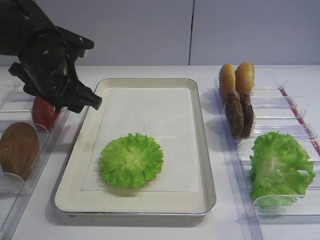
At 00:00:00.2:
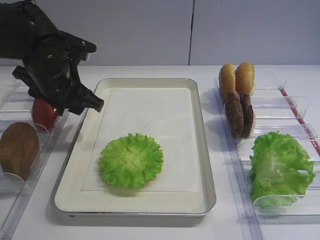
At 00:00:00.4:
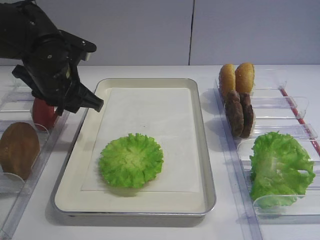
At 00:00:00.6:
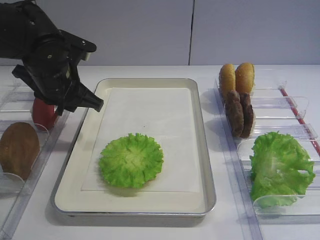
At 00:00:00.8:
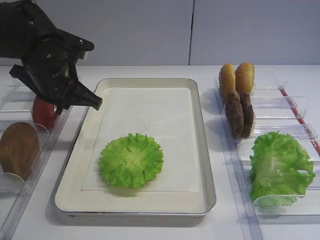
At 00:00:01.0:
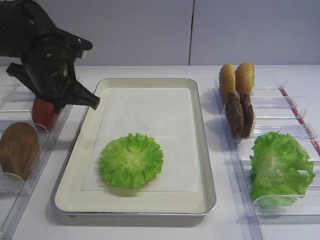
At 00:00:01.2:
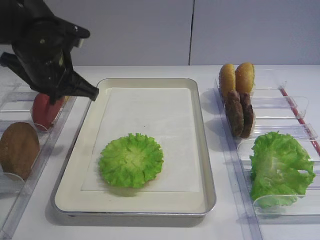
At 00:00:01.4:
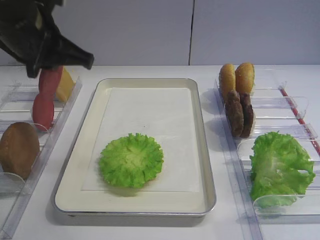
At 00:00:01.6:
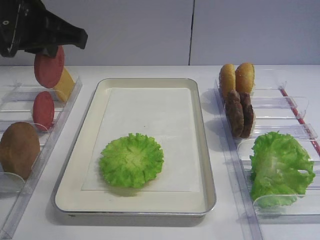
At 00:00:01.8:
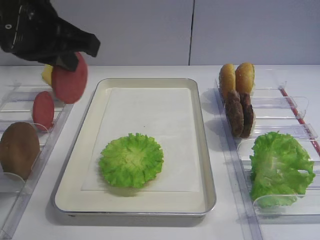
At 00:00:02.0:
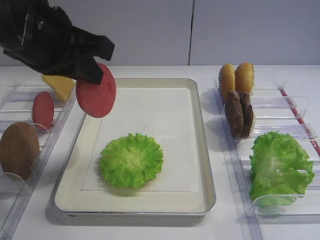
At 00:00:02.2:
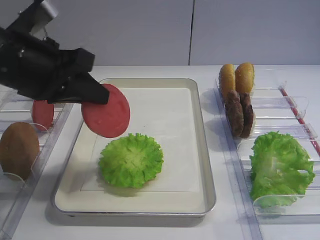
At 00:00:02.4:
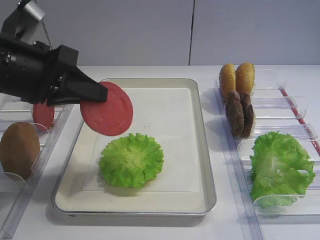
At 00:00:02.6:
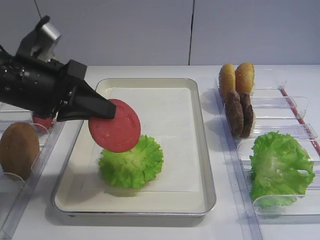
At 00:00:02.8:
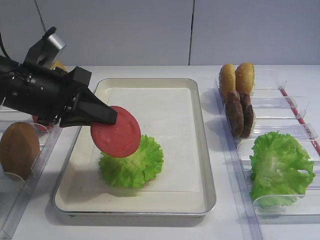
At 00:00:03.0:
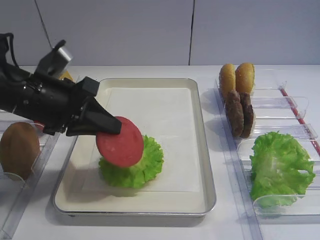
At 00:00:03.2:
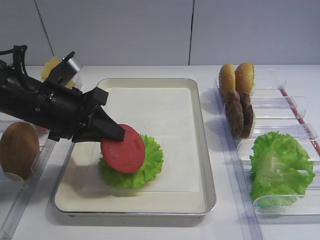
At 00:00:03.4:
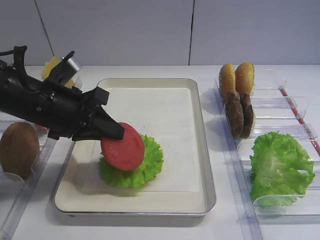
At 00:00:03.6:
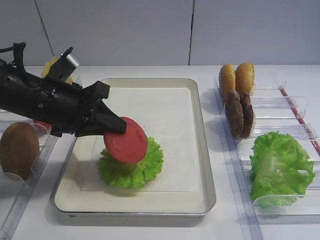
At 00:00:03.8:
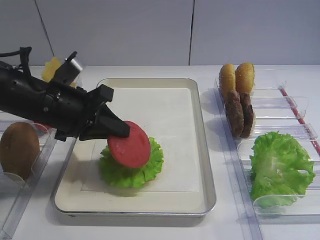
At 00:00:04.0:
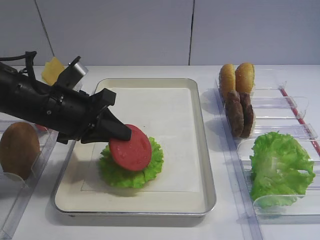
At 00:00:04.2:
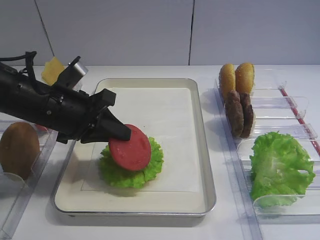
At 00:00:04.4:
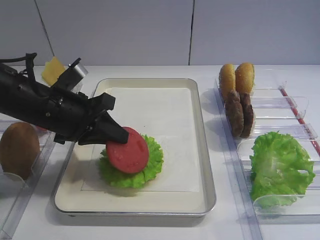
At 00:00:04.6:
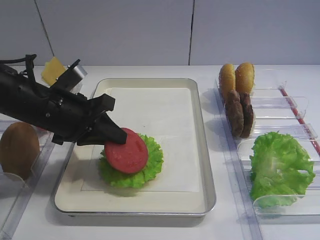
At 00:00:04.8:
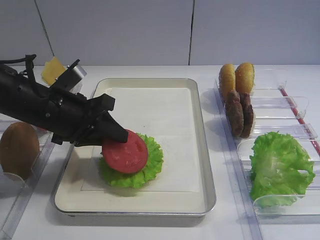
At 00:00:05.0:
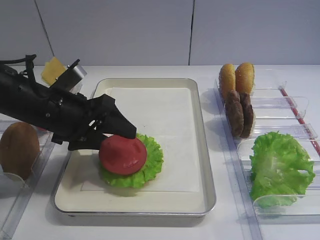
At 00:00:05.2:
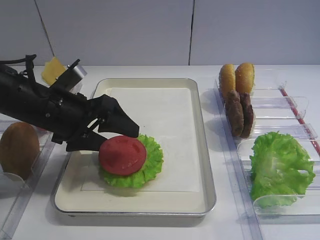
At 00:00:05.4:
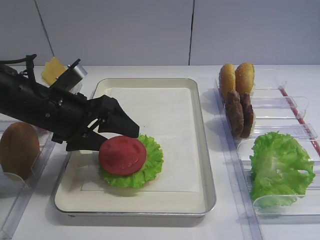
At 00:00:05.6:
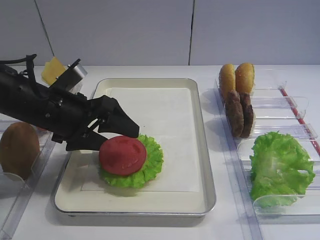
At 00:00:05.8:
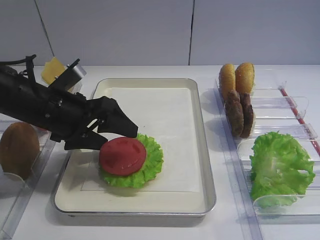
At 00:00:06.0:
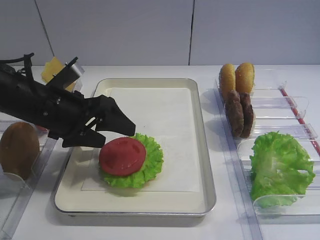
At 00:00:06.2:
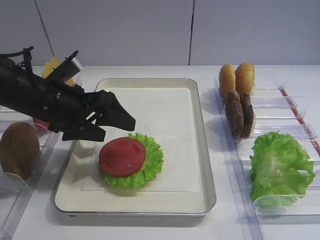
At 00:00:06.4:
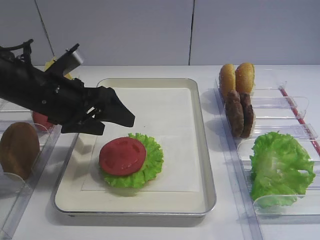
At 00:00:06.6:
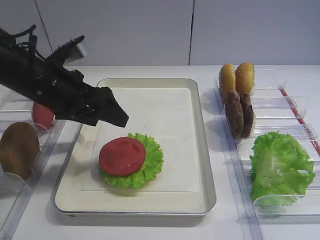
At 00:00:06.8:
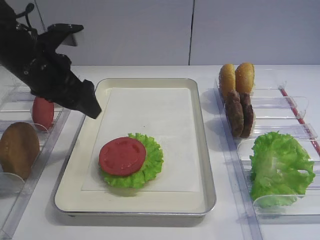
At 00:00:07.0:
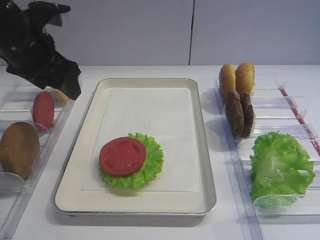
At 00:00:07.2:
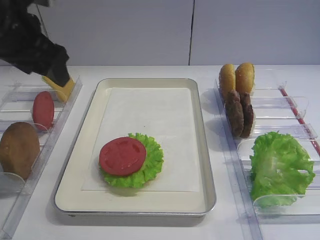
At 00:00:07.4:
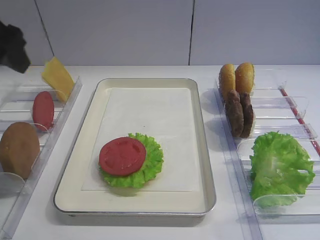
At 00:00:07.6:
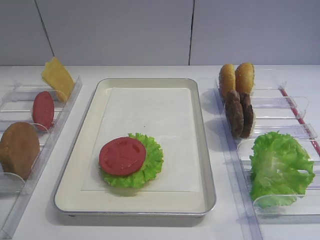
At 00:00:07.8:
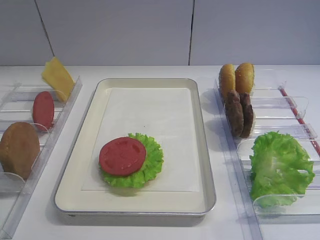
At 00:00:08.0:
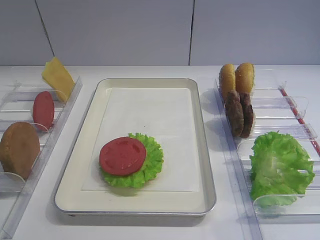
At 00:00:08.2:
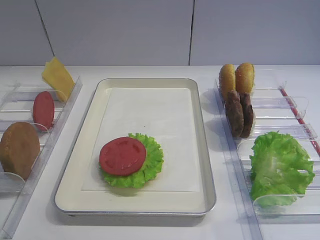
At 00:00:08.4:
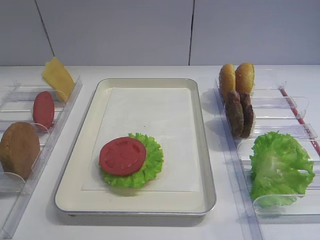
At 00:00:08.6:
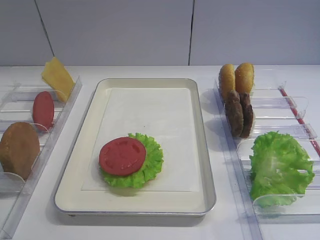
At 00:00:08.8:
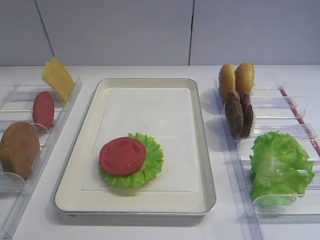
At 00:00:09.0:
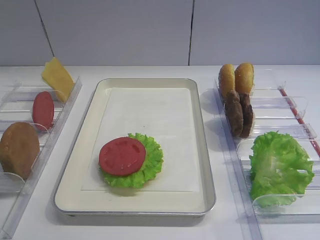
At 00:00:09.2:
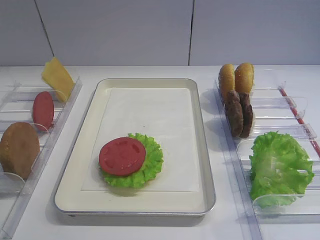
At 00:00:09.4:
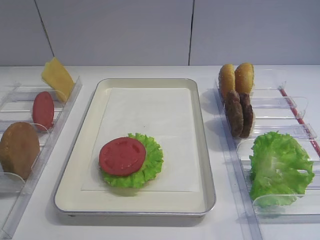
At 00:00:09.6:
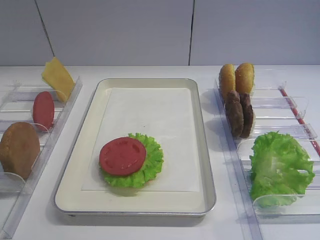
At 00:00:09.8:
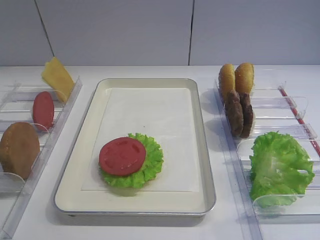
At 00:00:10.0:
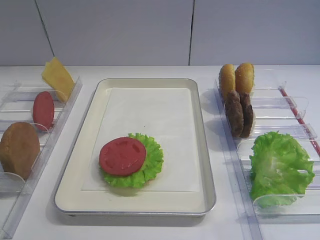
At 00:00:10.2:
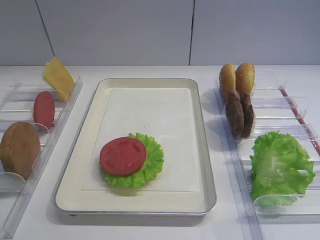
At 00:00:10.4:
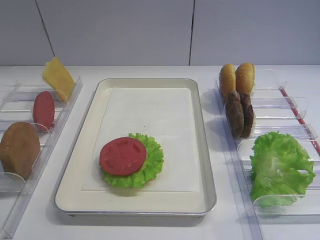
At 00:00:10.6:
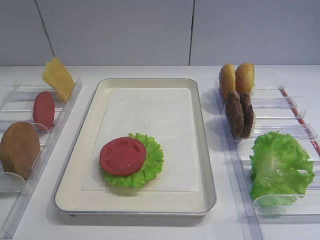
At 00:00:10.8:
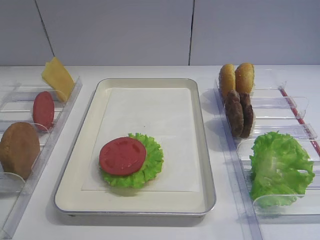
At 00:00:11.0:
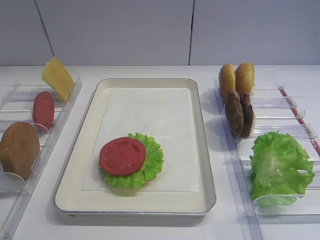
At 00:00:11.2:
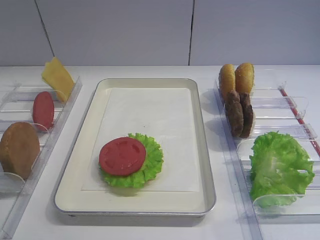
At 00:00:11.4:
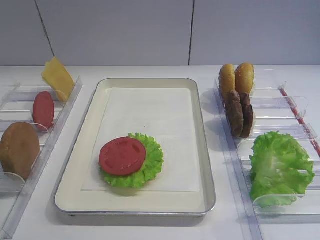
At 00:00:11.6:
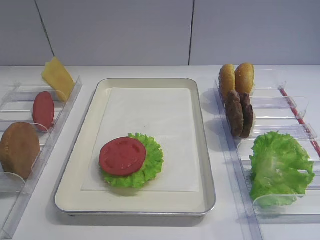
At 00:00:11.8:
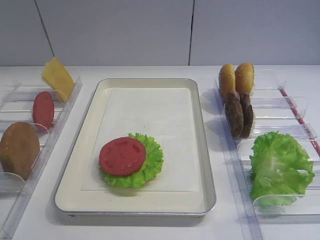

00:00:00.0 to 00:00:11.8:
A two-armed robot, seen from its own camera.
Step, 00:00:01.8 to 00:00:06.4: Place the tomato slice on the lettuce leaf with the left gripper.
00:00:00.0 to 00:00:01.4: The left gripper moves upward, some 10 cm, and closes its fingers.
00:00:01.4 to 00:00:03.0: The left gripper goes roughly 10 cm downward.
00:00:03.0 to 00:00:04.4: The grippers stay close to where they were, moving slightly.
00:00:04.4 to 00:00:06.0: The left gripper opens its fingers.
00:00:06.0 to 00:00:07.4: The left gripper is displaced upward and to the left by some 20 cm.
00:00:07.4 to 00:00:08.8: The left gripper heads backward, covering approximately 25 cm.

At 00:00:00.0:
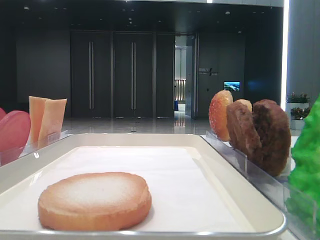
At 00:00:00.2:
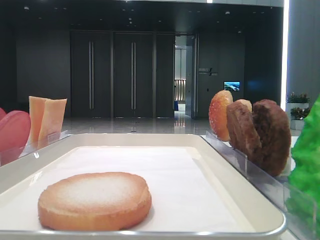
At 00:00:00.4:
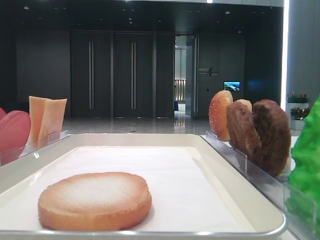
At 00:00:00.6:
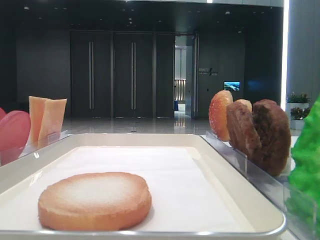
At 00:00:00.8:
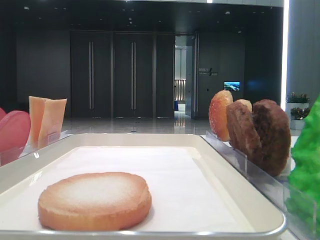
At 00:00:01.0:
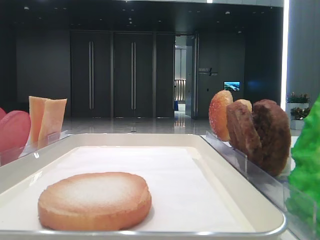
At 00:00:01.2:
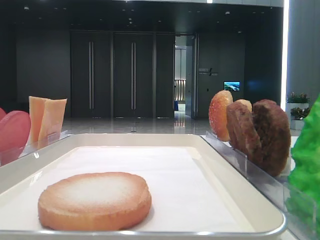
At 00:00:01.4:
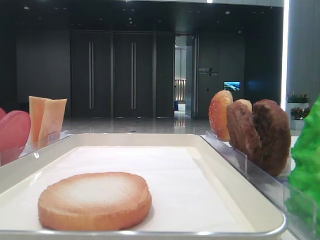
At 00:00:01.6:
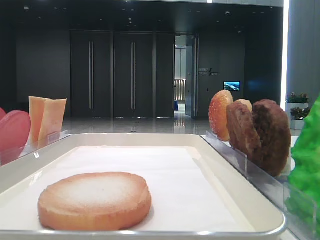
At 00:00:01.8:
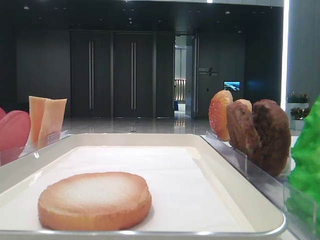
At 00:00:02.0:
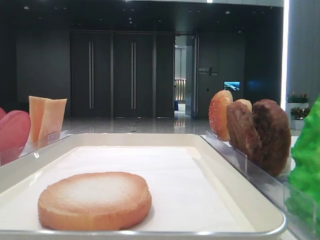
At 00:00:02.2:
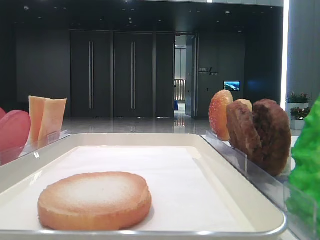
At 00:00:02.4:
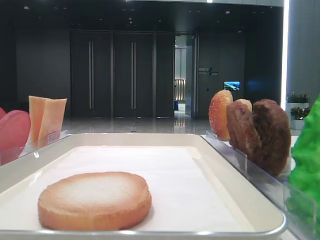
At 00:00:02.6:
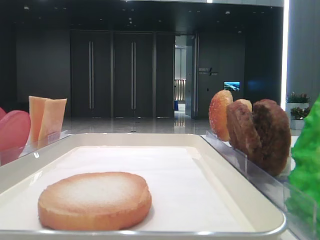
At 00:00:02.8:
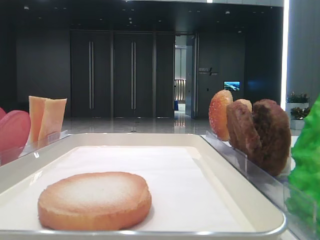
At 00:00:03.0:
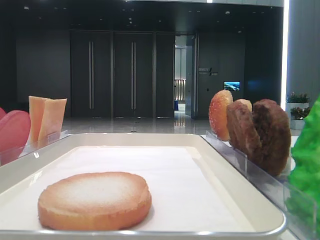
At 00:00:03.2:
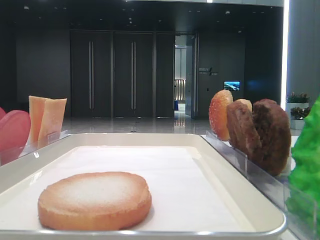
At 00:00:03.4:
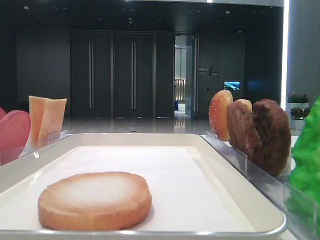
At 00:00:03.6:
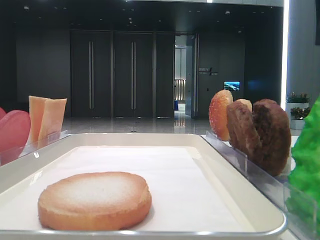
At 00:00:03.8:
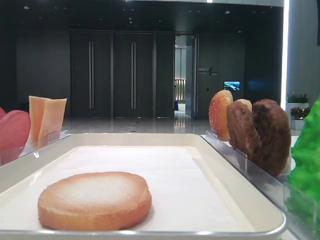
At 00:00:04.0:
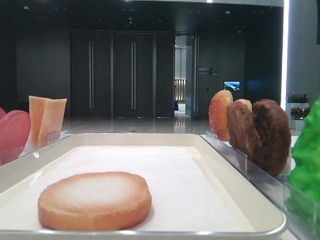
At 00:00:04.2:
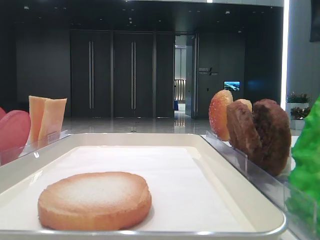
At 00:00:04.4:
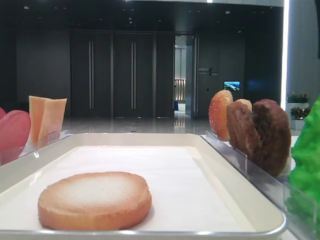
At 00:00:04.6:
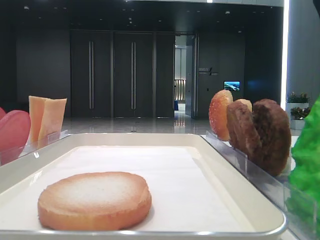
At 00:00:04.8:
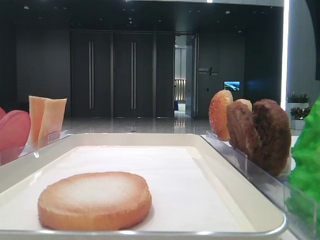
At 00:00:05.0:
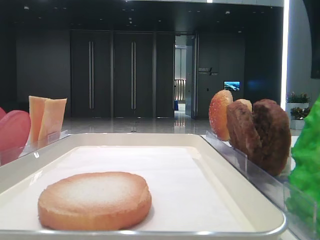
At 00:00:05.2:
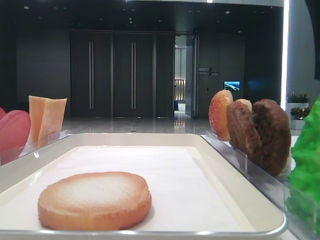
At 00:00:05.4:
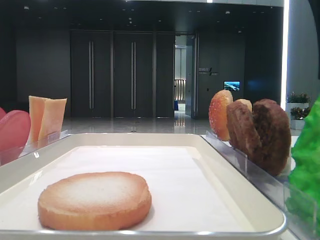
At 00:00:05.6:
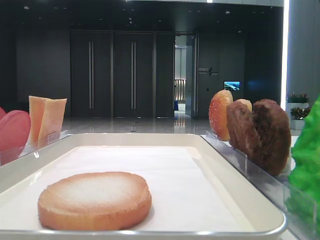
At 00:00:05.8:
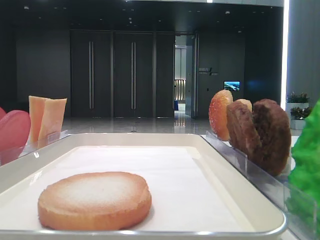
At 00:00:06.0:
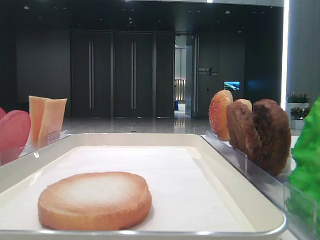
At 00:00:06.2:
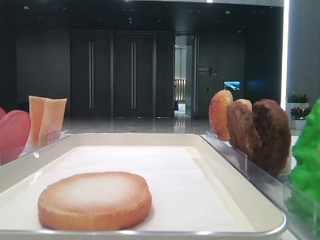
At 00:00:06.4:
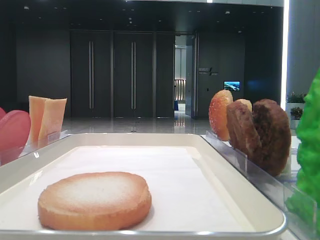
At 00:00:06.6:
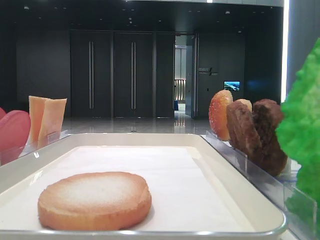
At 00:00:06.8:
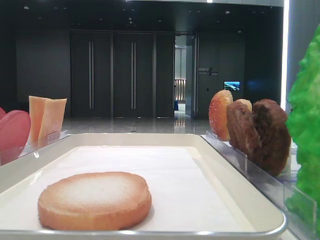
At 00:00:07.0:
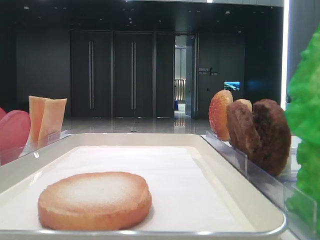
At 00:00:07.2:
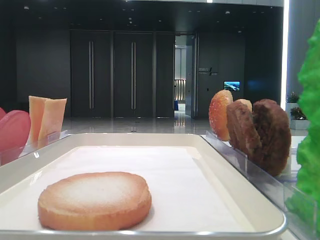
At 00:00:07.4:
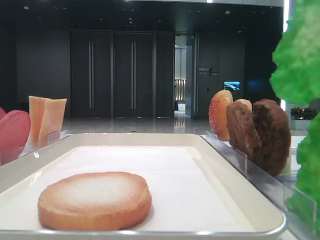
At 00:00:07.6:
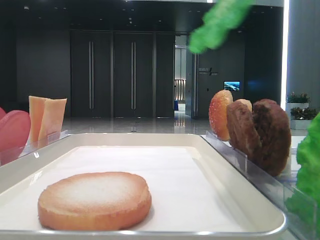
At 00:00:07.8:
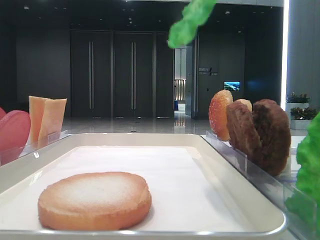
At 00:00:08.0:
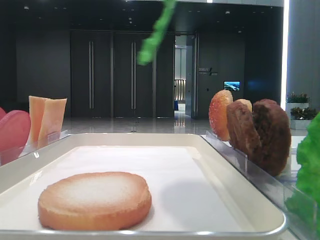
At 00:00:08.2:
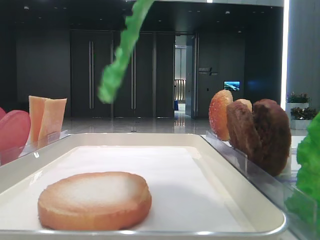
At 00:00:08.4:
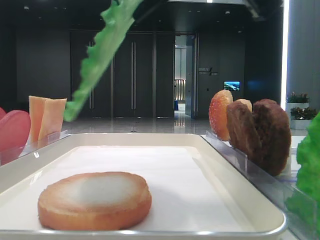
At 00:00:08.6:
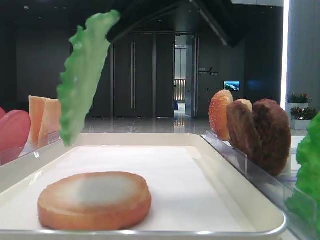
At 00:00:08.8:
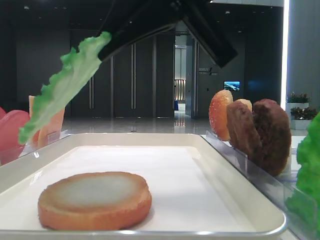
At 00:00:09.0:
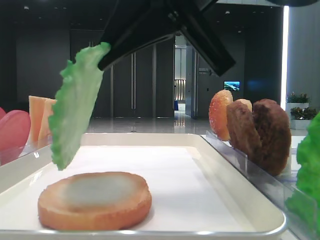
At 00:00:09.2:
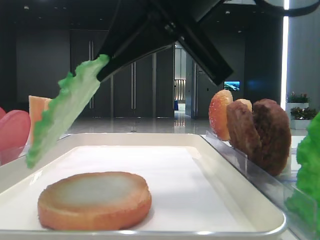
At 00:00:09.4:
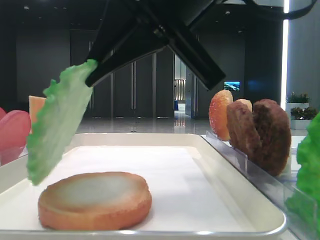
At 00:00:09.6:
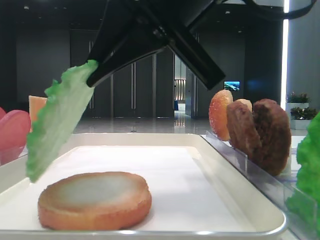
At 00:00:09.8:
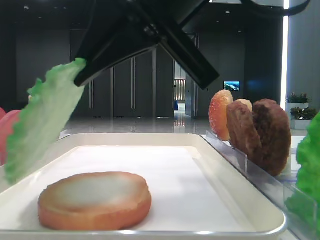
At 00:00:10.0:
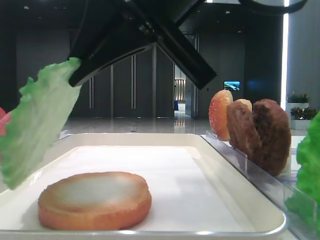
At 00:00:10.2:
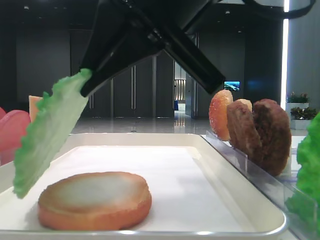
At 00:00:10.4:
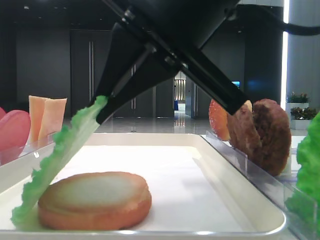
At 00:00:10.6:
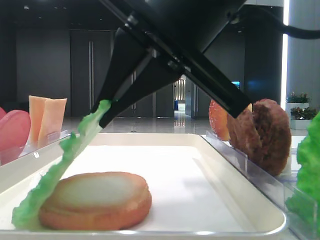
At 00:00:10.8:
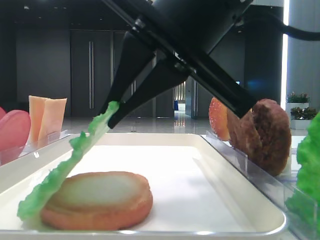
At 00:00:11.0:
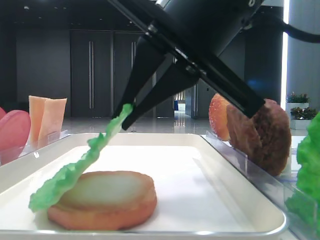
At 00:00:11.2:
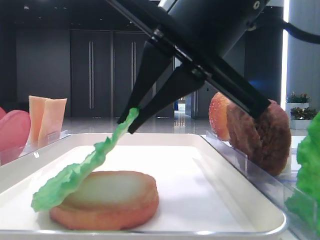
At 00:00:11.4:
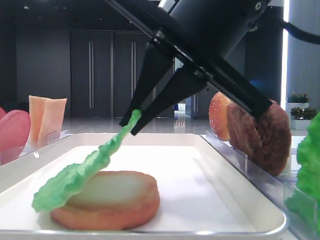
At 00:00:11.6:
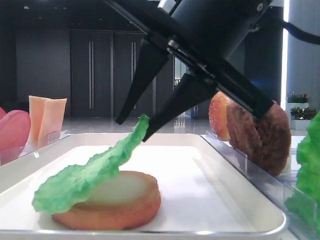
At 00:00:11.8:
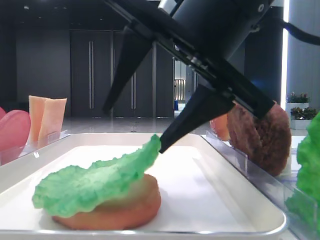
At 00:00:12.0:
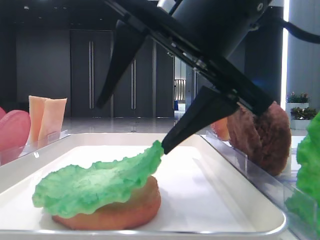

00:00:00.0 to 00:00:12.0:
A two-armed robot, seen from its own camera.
00:00:06.0 to 00:00:07.6: The right gripper is displaced upward by approximately 10 cm.
00:00:07.6 to 00:00:09.0: The right gripper goes roughly 15 cm to the left, downward and forward.
00:00:10.4 to 00:00:12.0: The right gripper opens.
